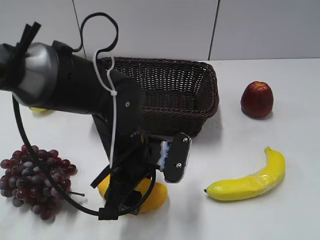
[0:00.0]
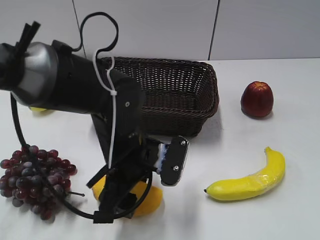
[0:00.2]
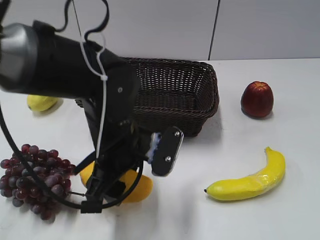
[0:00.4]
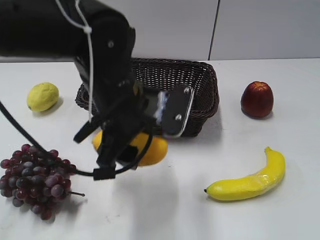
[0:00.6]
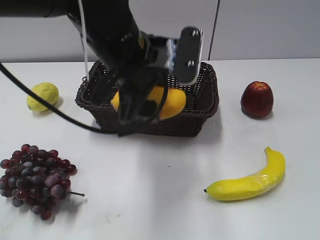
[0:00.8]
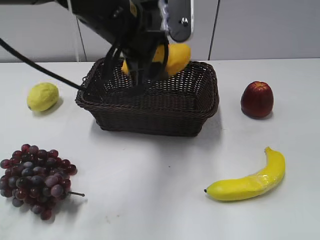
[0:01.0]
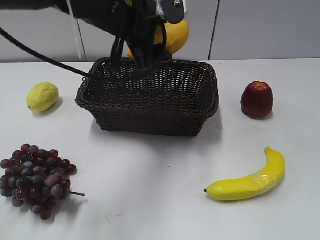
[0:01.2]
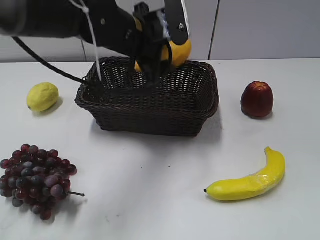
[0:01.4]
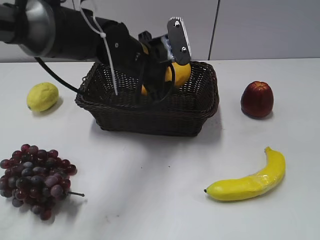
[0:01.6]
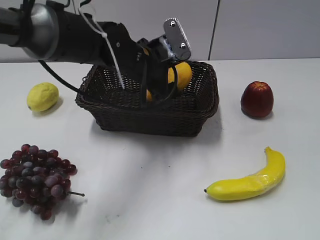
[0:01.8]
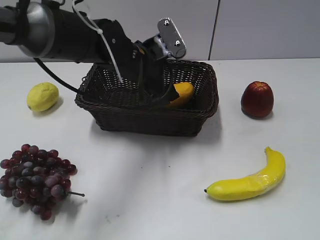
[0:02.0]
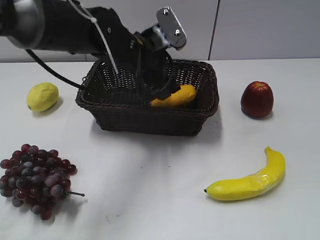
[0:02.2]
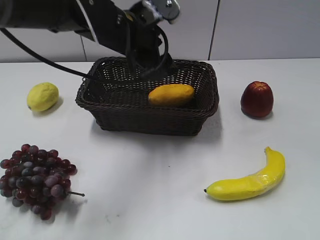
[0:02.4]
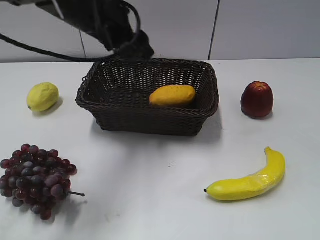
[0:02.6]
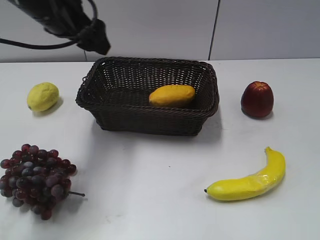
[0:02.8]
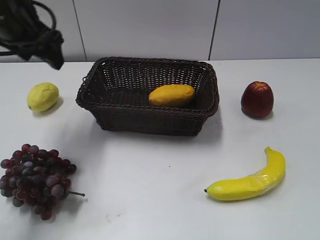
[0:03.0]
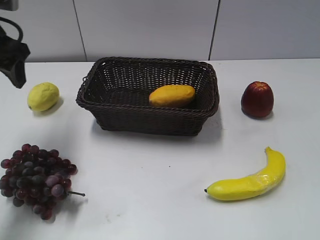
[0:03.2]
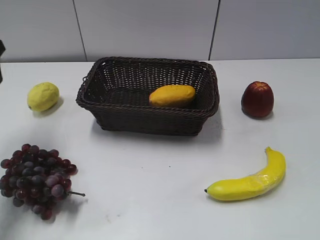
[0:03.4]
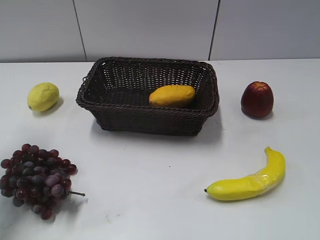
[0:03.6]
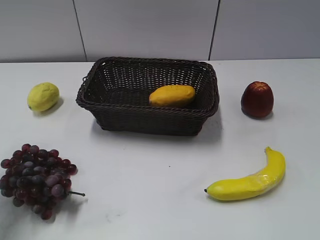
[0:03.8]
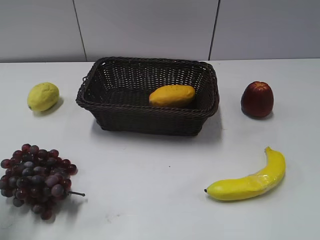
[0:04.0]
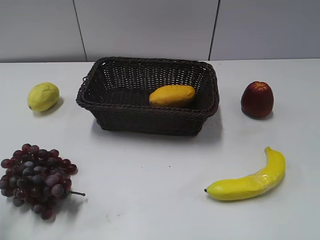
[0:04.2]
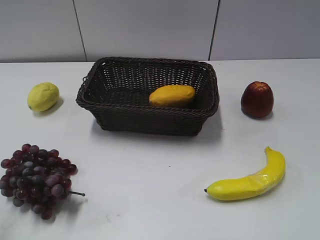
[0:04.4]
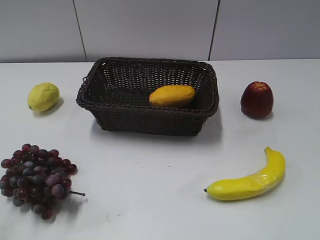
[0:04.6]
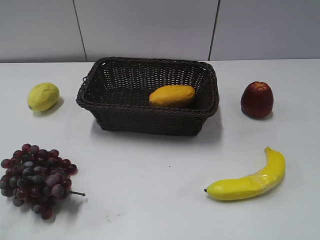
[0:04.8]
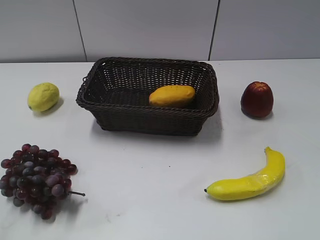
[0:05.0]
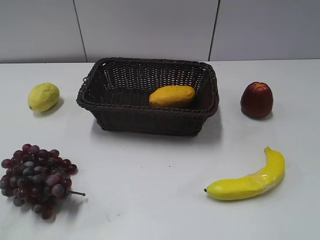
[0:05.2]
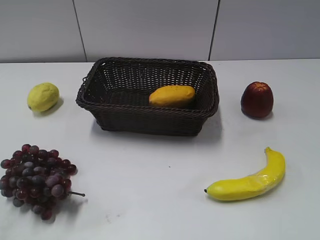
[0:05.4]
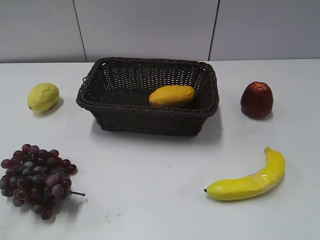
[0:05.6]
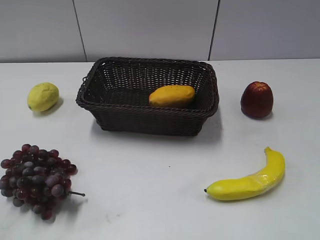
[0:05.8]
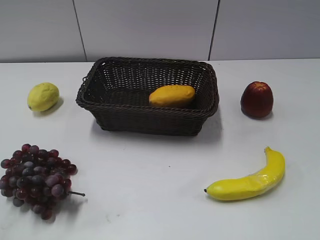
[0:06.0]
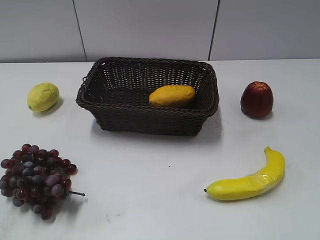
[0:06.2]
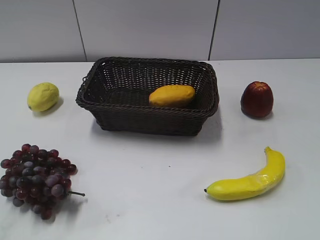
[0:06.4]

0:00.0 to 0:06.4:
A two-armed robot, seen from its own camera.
Step, 0:00.2 to 0:02.0: Place the mango in the basket with left gripper.
0:00.0 to 0:01.6: The left gripper shifts roughly 15 cm forward and upward.
0:01.6 to 0:03.2: The left gripper goes approximately 25 cm to the left and upward.
0:03.2 to 0:04.8: The left gripper moves backward, approximately 30 cm.

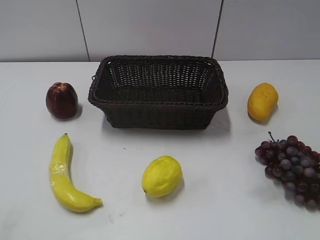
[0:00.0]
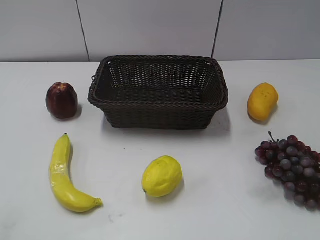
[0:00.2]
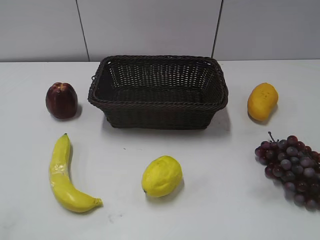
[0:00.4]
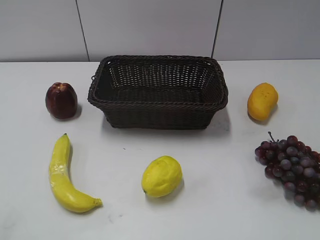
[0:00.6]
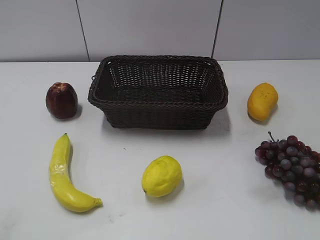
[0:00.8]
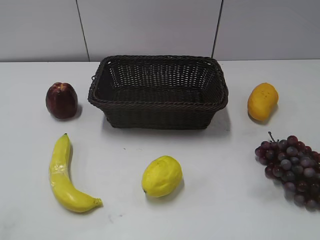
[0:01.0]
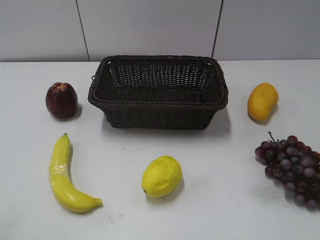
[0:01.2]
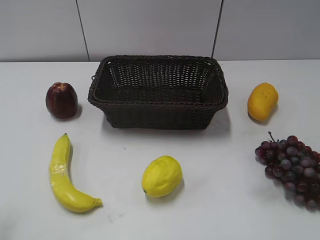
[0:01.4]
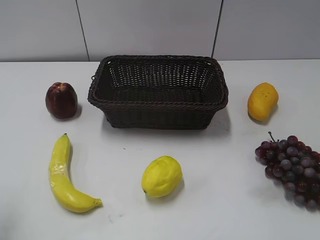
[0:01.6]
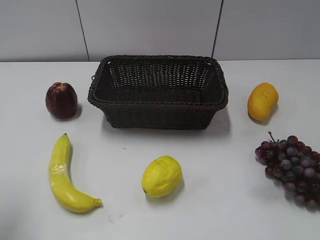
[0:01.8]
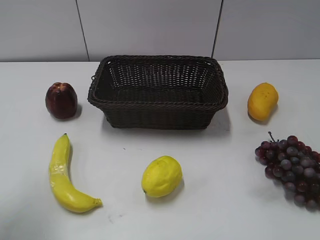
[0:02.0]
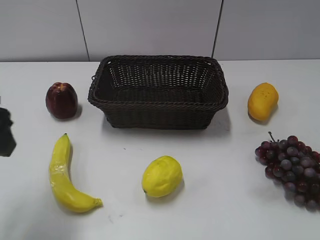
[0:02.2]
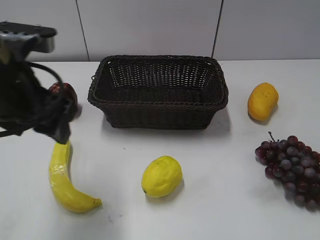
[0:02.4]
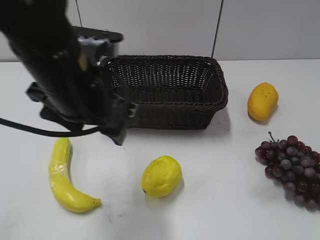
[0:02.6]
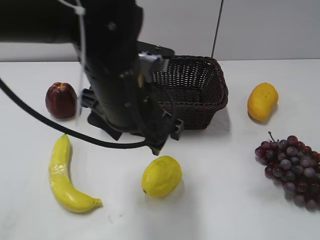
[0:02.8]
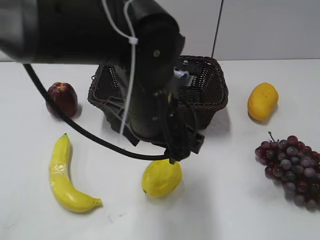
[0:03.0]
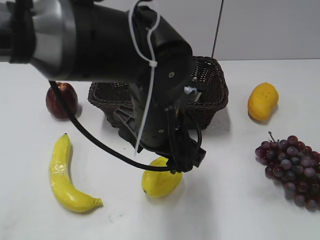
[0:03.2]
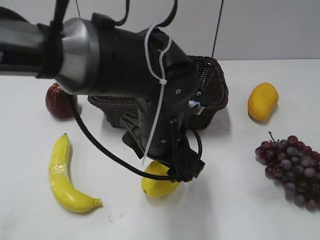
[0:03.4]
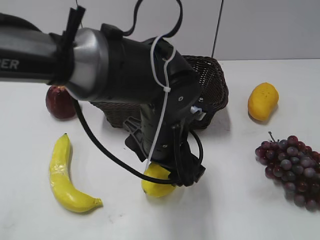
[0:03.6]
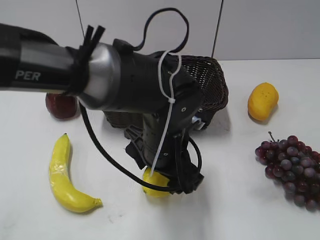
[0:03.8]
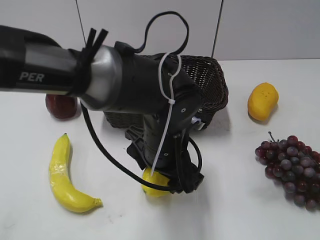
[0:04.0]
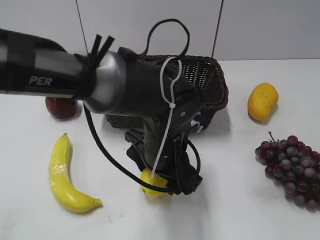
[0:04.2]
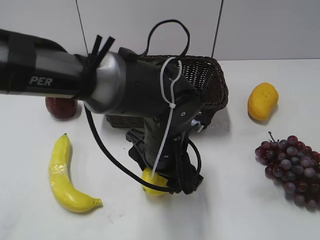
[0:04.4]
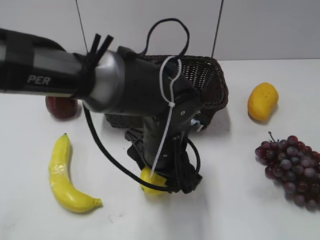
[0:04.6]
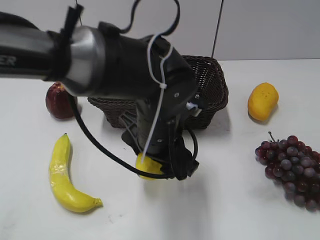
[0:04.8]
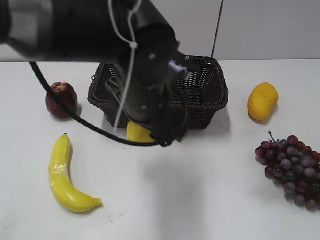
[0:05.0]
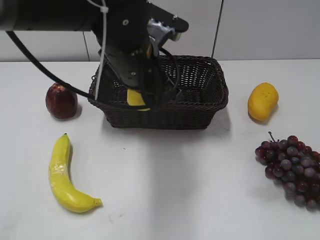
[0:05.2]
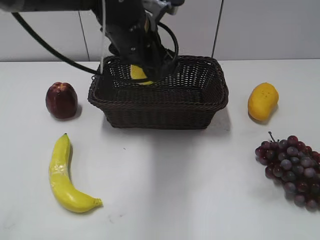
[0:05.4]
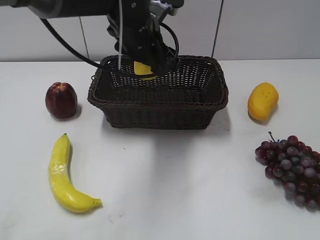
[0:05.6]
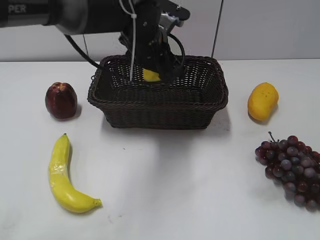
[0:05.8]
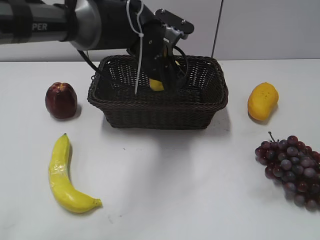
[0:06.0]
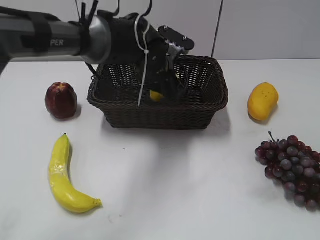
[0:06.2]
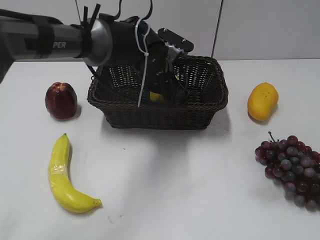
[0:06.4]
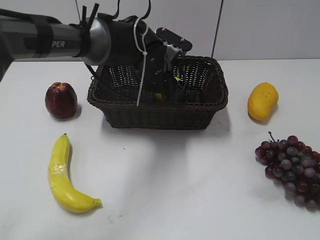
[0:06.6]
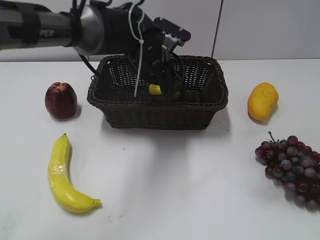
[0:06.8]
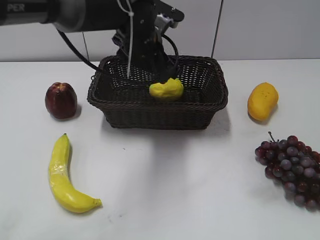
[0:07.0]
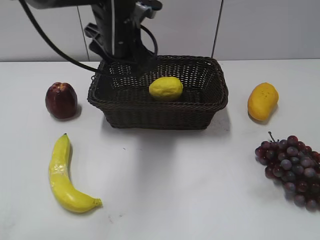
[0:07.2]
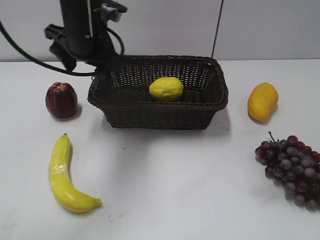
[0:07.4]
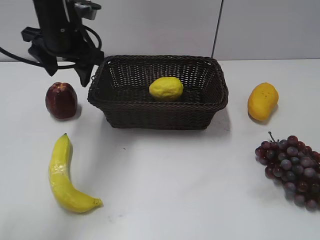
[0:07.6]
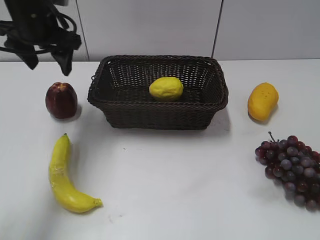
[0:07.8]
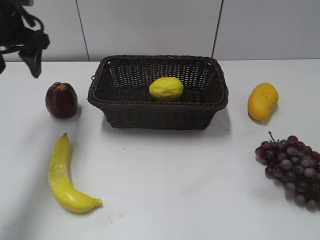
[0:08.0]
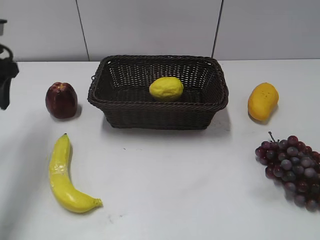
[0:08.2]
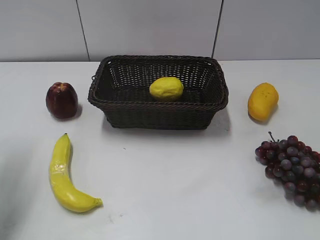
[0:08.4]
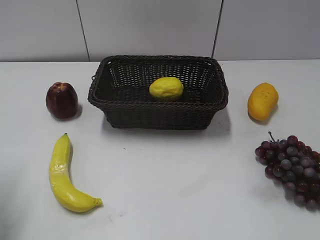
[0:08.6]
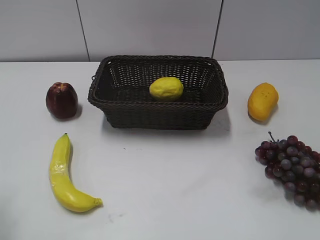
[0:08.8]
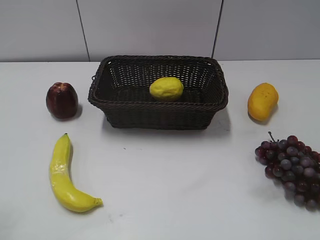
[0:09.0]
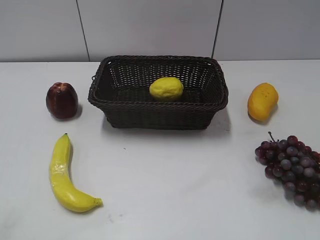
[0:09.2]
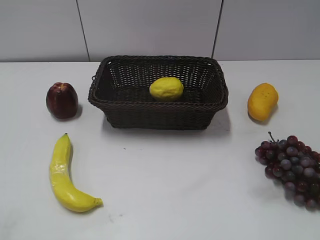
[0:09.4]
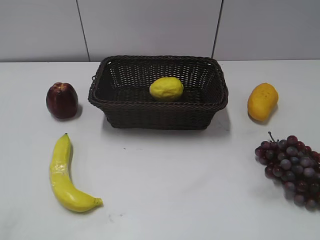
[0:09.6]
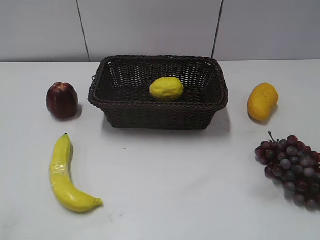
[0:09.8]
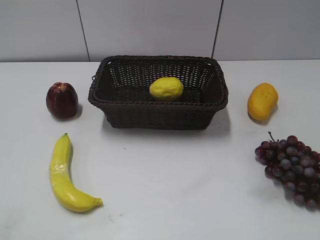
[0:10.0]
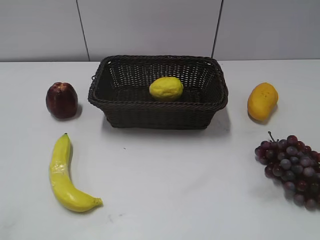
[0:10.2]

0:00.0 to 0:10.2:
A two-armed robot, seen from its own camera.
Step, 0:02.2 to 0:04.8: Grasp the lemon with left gripper.
Step, 0:05.0 to 0:07.0: Place the lemon in the basket with left gripper.
0:01.4 to 0:03.0: The left gripper goes about 30 cm to the right.
0:03.0 to 0:04.4: The left gripper heads downward, covering approximately 10 cm, and closes up.
0:04.4 to 0:05.8: The left gripper travels forward and upward by approximately 15 cm.
0:05.8 to 0:07.2: The left gripper travels to the left by roughly 5 cm, travels downward and back again, some 5 cm each way, and opens.
0:07.2 to 0:08.8: The left gripper moves to the left and backward, approximately 35 cm.
